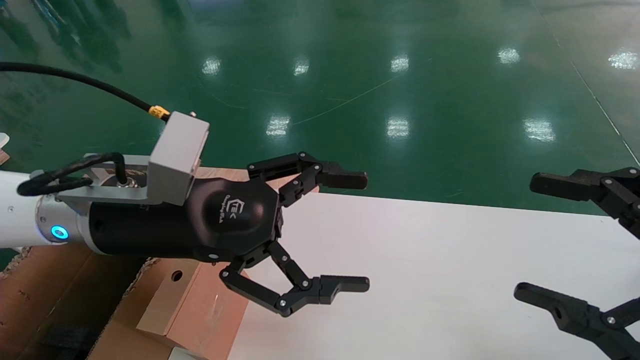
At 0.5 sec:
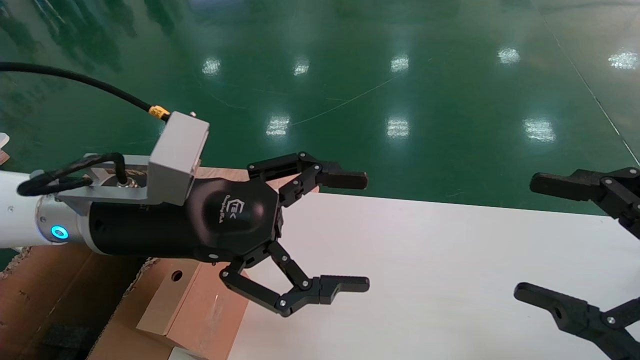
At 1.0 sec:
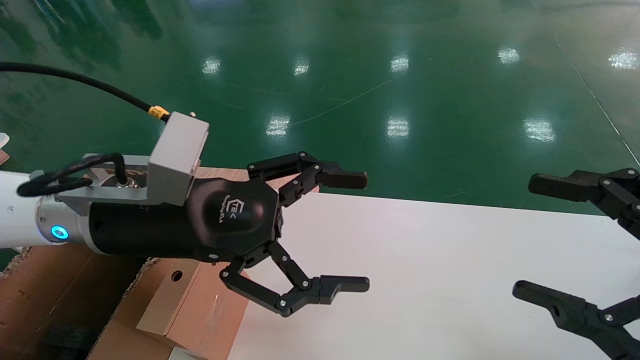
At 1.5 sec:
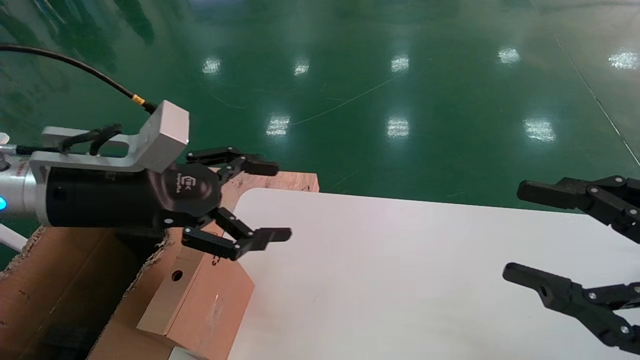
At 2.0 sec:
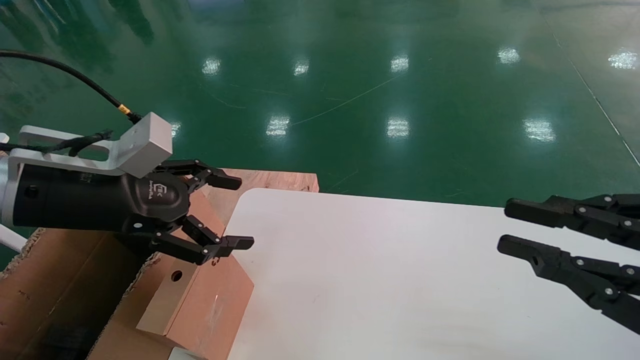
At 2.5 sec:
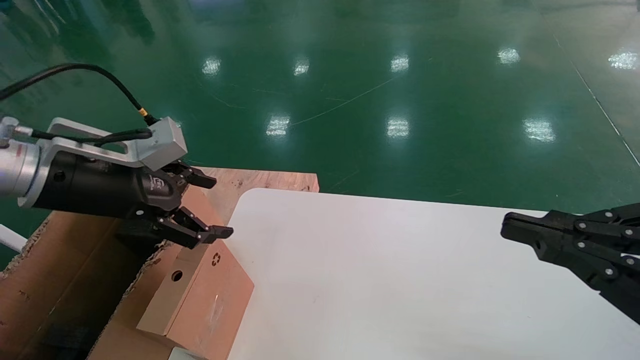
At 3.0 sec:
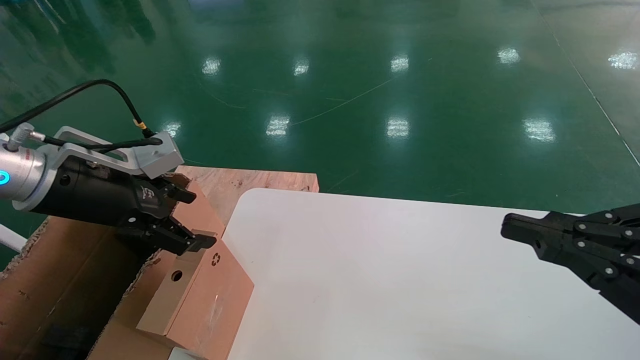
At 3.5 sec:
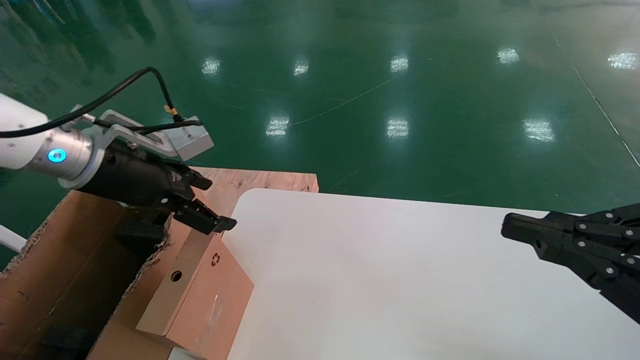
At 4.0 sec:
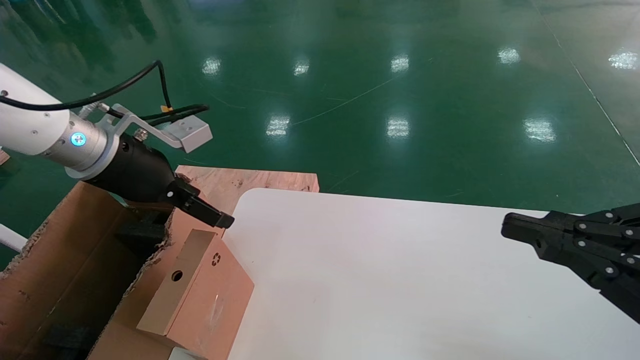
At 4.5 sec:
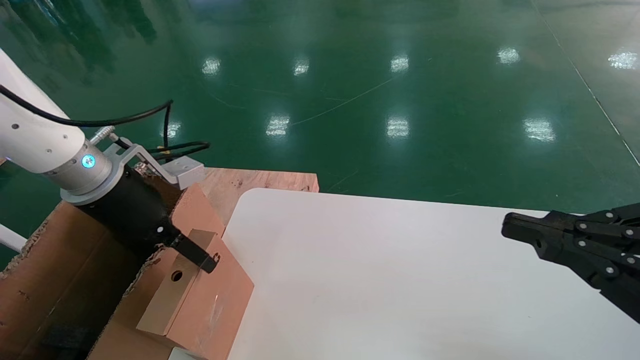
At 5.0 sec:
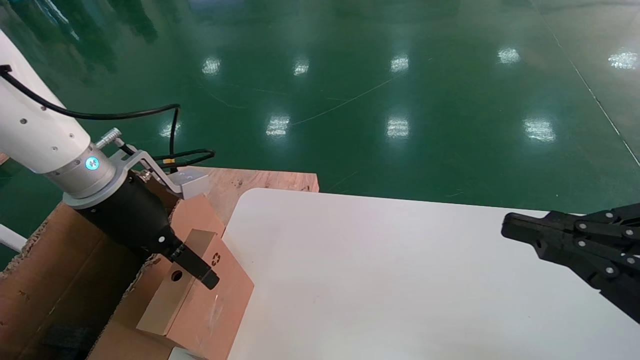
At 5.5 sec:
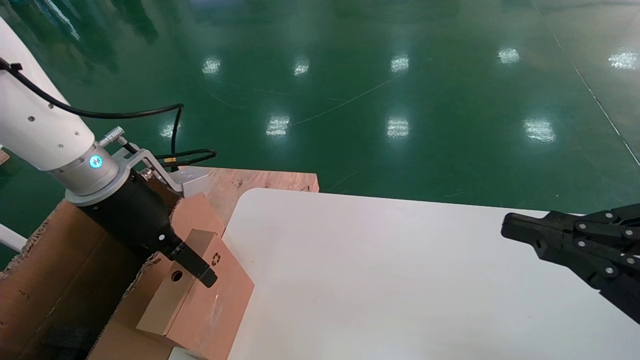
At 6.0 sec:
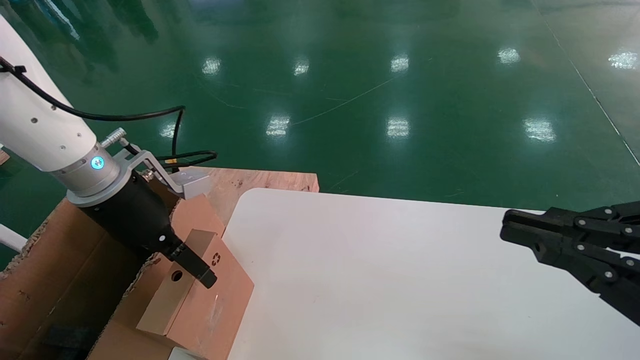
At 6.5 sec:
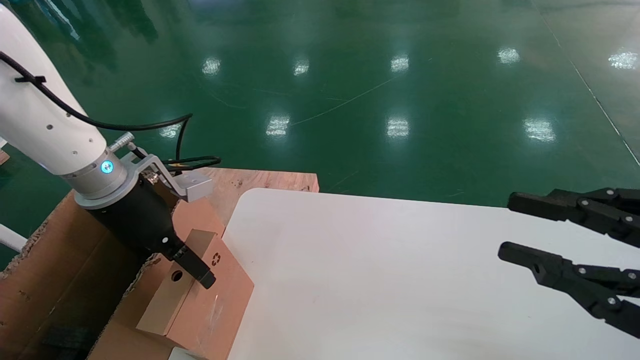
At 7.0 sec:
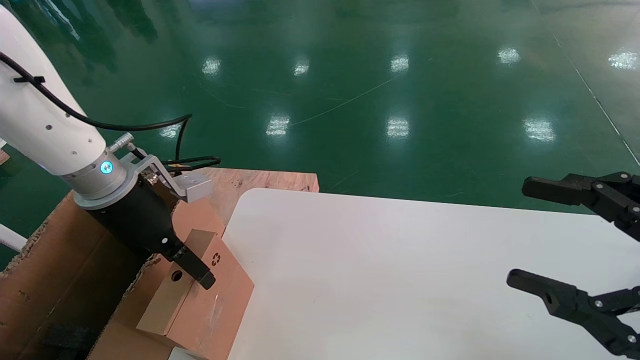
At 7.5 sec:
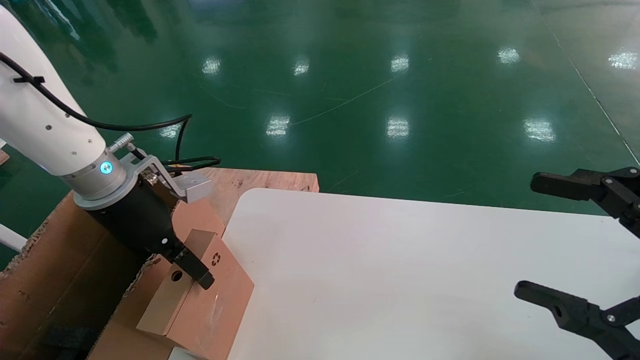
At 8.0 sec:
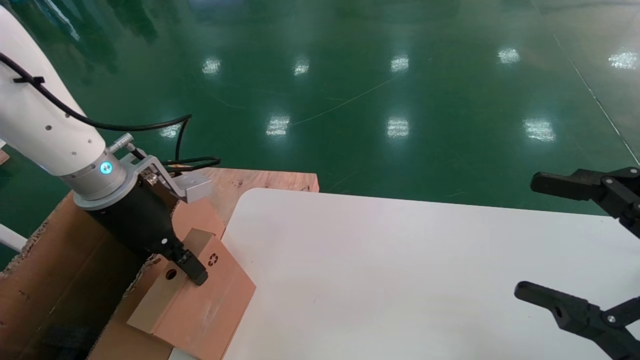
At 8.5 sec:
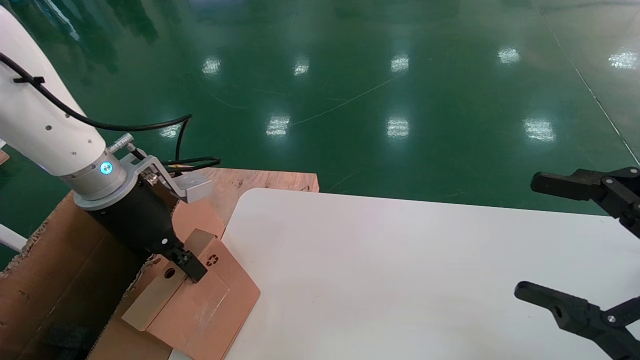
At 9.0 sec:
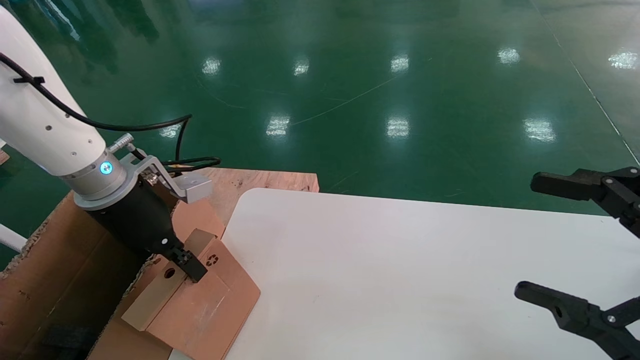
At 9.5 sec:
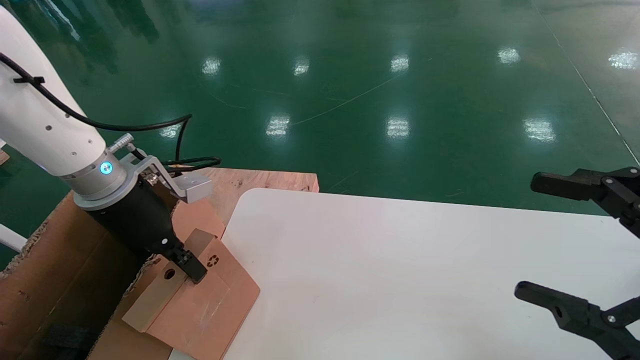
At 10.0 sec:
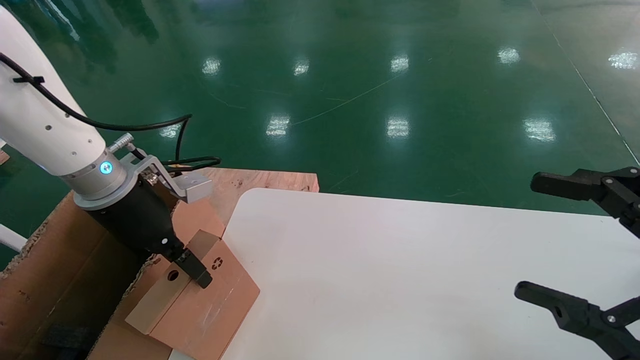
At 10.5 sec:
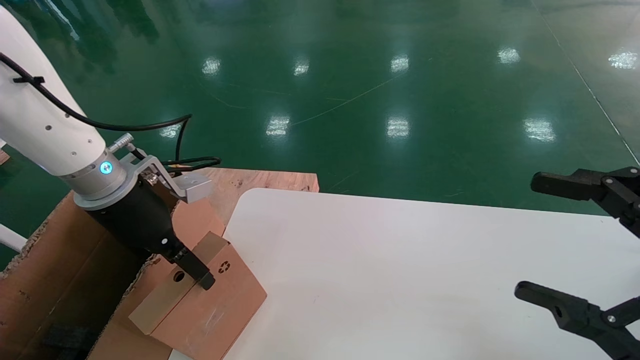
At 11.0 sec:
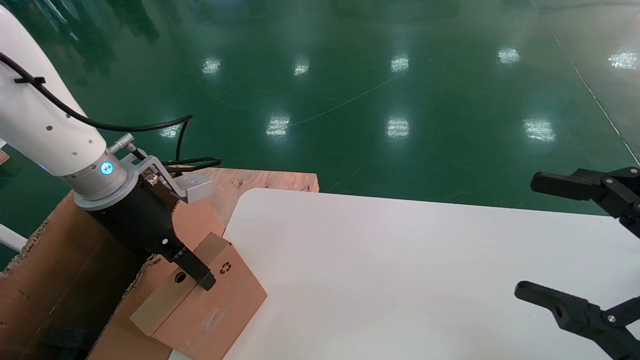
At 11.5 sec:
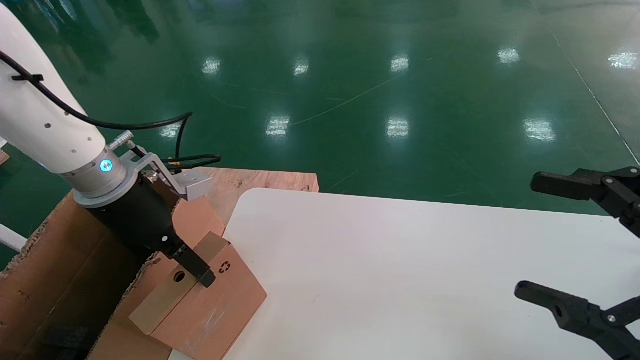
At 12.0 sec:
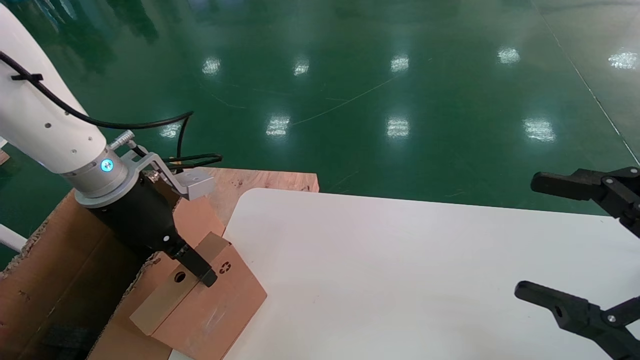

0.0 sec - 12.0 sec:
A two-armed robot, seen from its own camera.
Task of the whole recording: place the small box on the table into the large box on the left.
Step, 1.5 sec - 8.0 sec: Pick up the mouse and the power cord paper box.
0.0 sec - 2.0 sec: The left gripper is displaced to the left by some 10 cm. The right gripper closes.
2.0 sec - 4.0 sec: The left gripper heads forward, covering about 10 cm.
6.0 sec - 8.0 sec: The left gripper closes its fingers; the right gripper opens.
8.0 sec - 10.0 sec: The two grippers keep their place.
10.0 sec - 12.0 sec: The left gripper opens up.

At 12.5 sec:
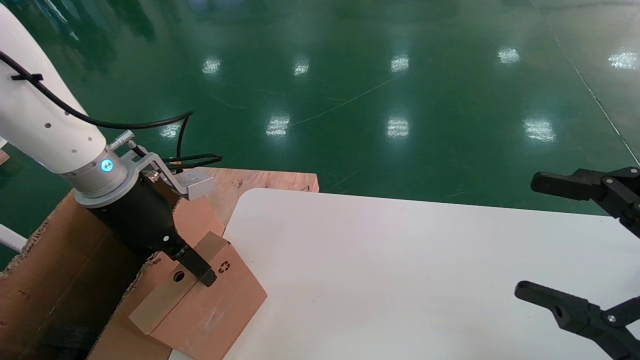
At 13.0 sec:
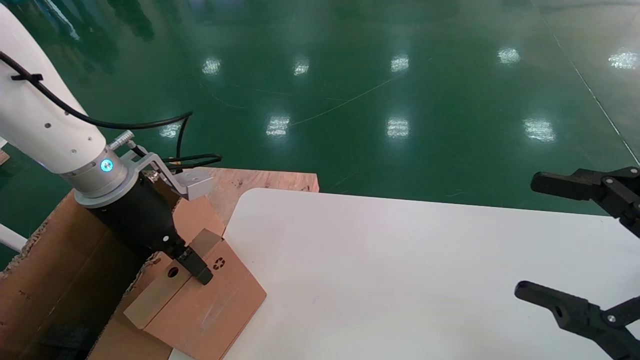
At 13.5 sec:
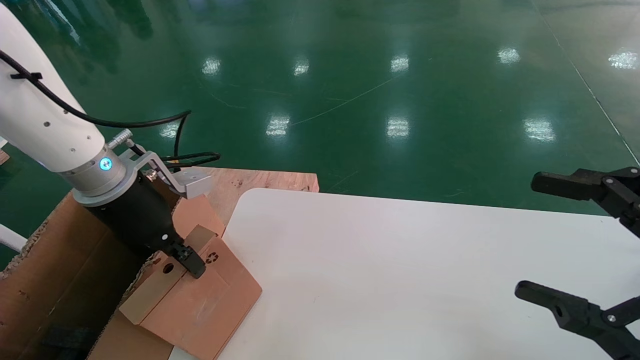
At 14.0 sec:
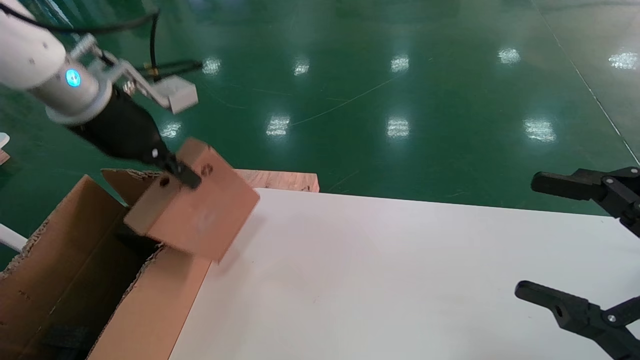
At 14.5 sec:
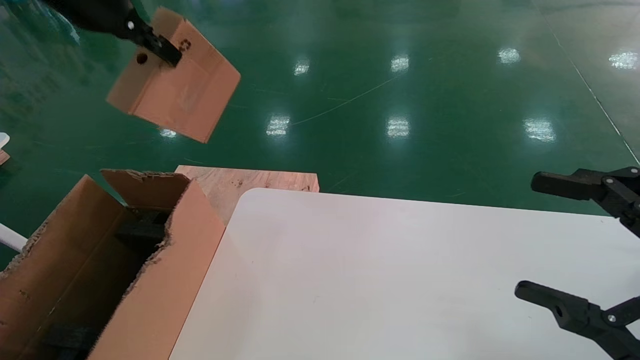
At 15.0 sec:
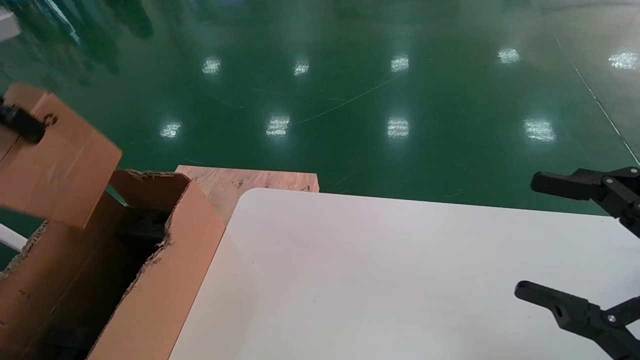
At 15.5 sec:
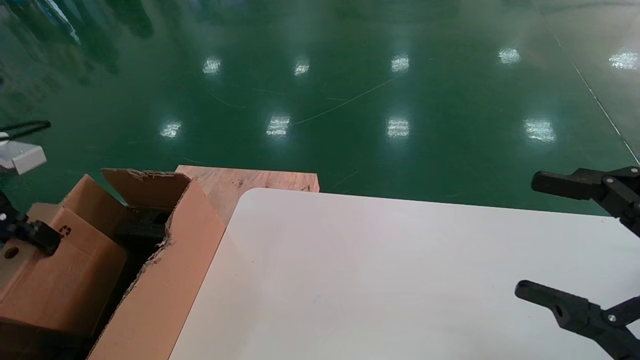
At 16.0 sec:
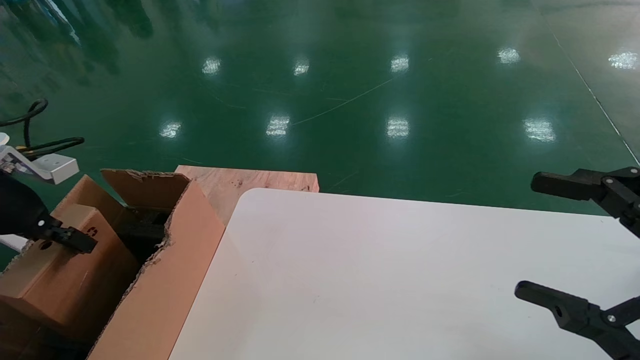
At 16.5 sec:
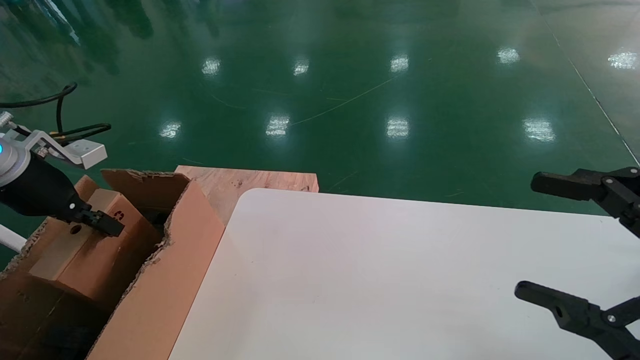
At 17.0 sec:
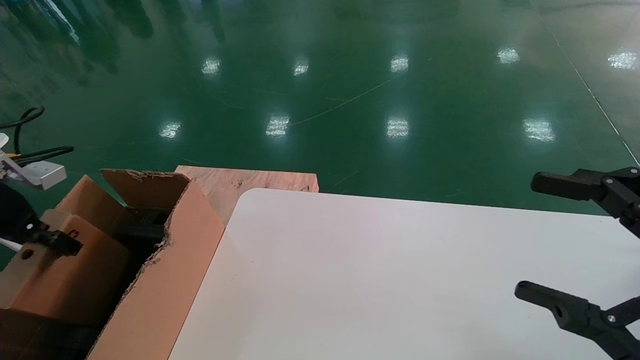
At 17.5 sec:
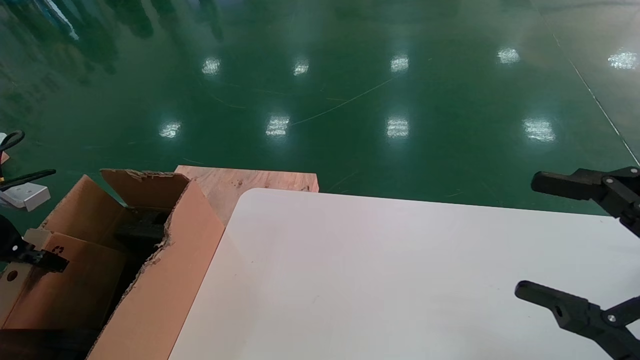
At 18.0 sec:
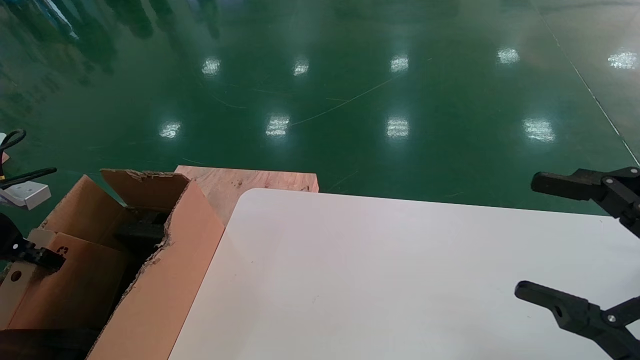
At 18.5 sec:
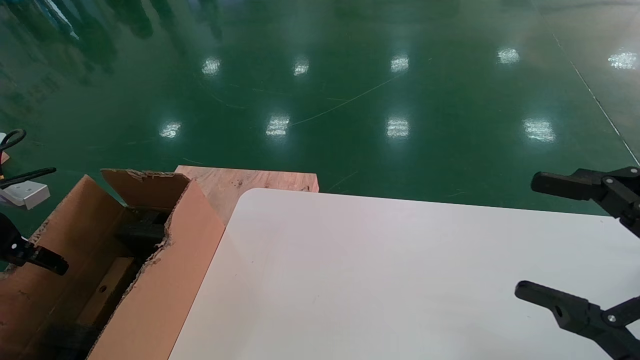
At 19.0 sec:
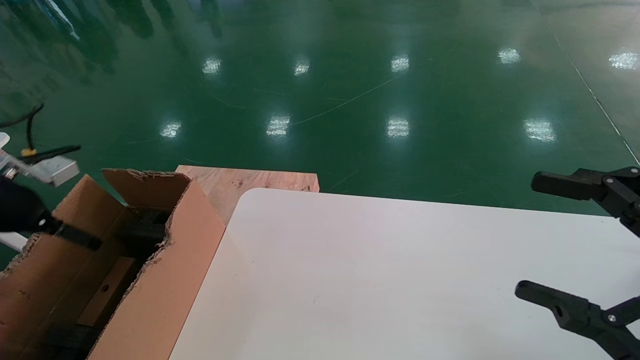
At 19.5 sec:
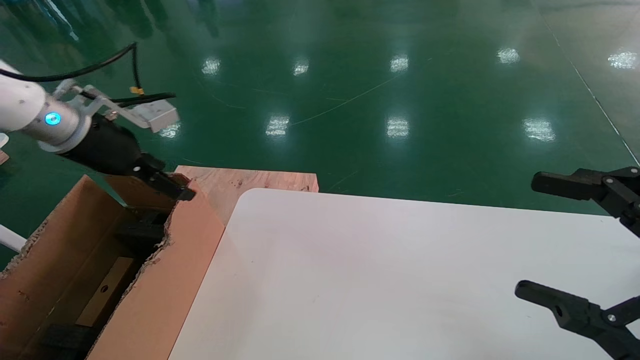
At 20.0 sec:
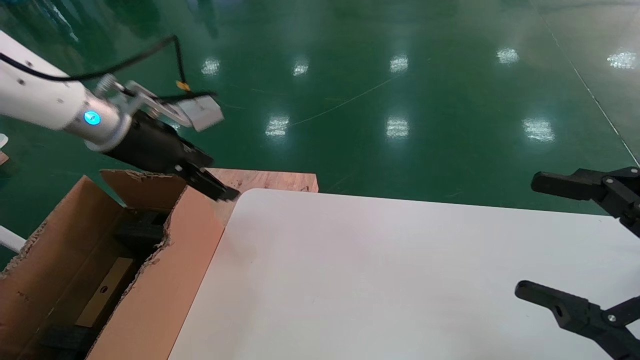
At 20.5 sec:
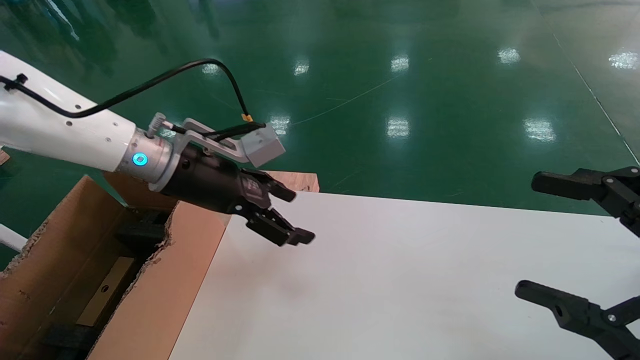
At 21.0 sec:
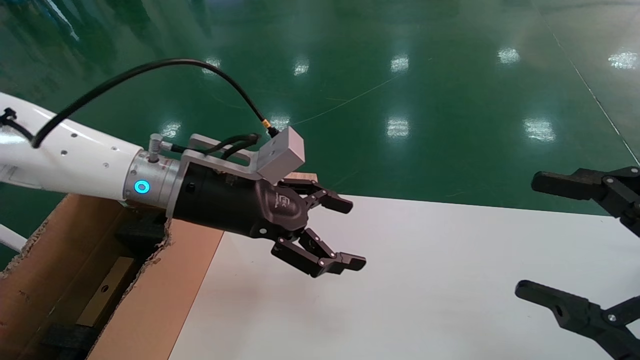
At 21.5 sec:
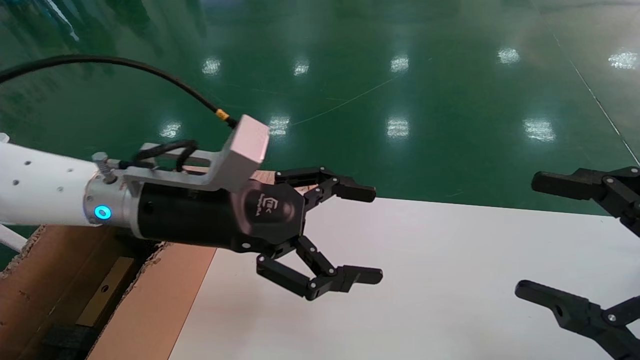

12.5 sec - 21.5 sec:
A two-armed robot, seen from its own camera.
Task of the whole recording: place the small box on the table into the large box on the left.
Step, 12.5 sec - 18.5 sec: Place the mouse and the power cord paper box into the container.
12.5 sec - 14.5 sec: The left gripper travels upward by approximately 25 cm, and closes.
14.5 sec - 17.0 sec: The left gripper moves downward and to the left, roughly 30 cm.
17.0 sec - 19.5 sec: The left gripper heads to the right, upward and forward, covering some 15 cm, and opens up.
19.5 sec - 21.5 sec: The left gripper heads to the right, covering some 20 cm.
